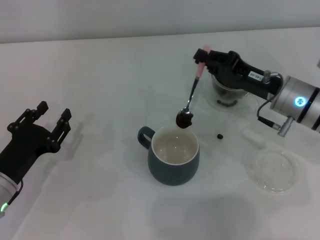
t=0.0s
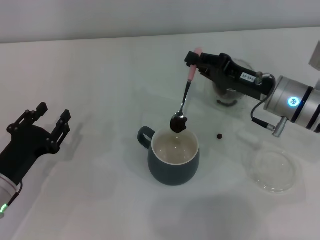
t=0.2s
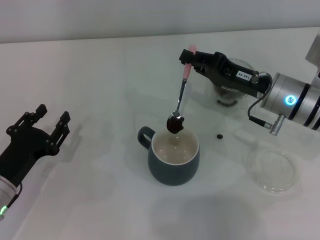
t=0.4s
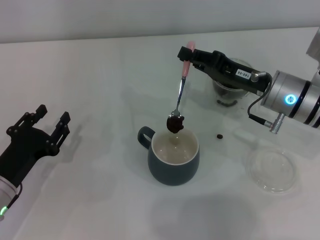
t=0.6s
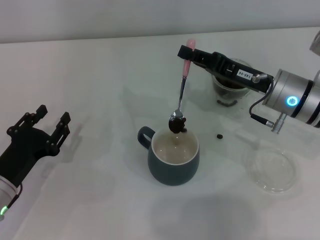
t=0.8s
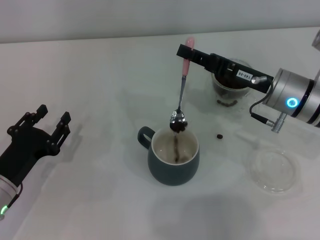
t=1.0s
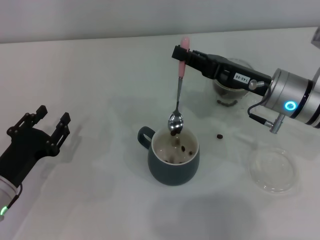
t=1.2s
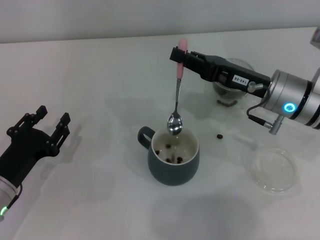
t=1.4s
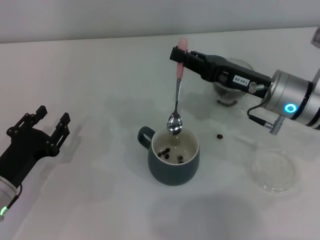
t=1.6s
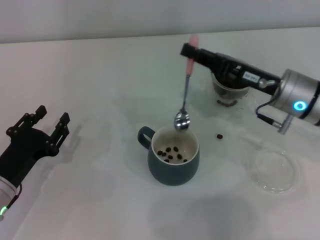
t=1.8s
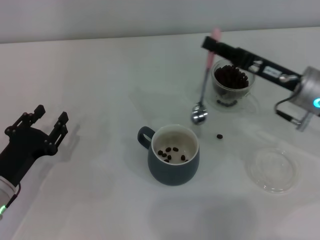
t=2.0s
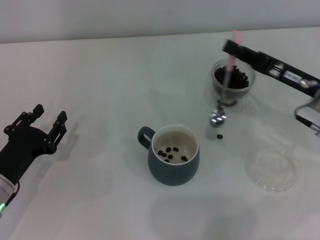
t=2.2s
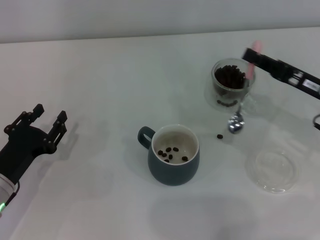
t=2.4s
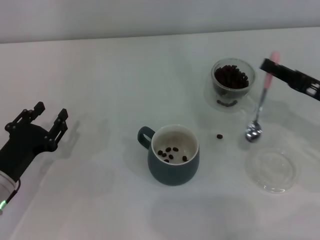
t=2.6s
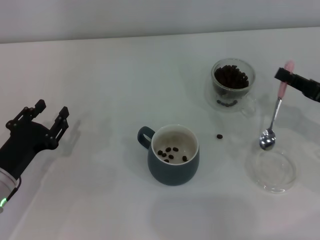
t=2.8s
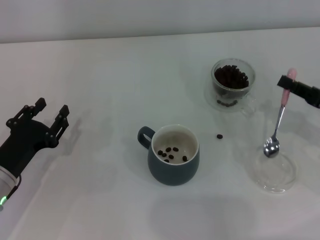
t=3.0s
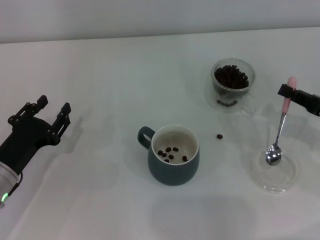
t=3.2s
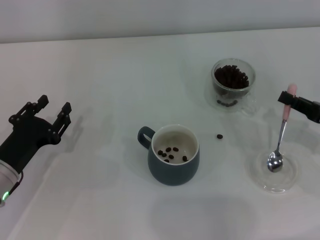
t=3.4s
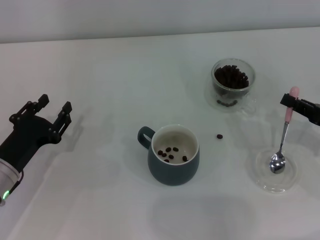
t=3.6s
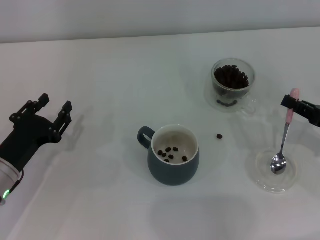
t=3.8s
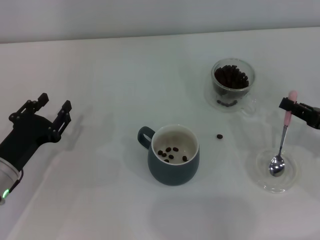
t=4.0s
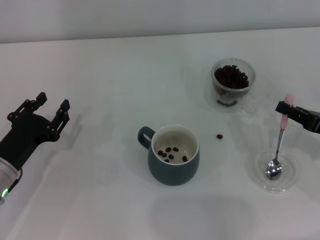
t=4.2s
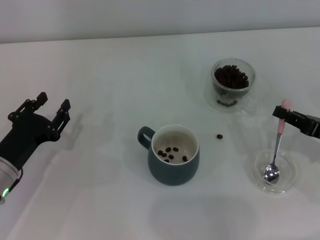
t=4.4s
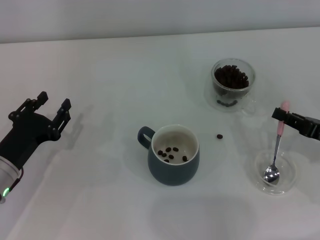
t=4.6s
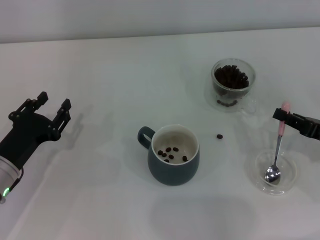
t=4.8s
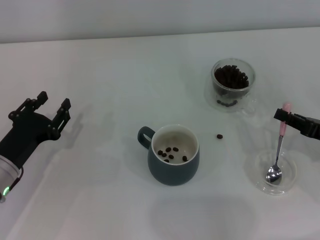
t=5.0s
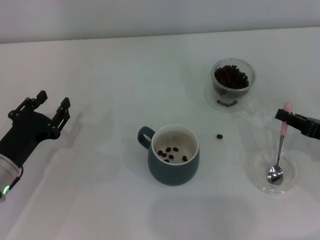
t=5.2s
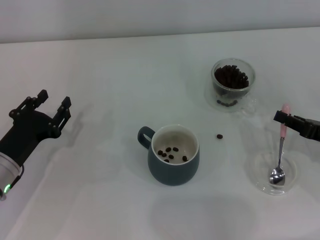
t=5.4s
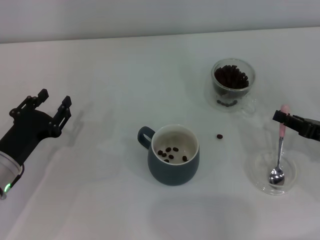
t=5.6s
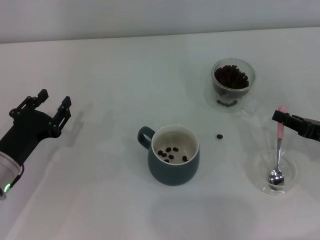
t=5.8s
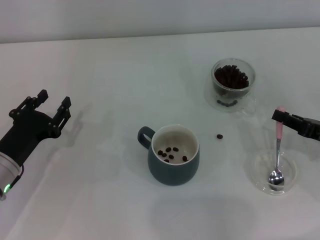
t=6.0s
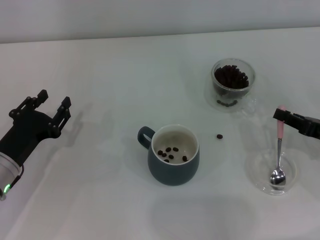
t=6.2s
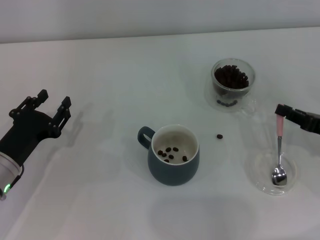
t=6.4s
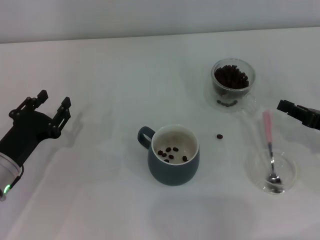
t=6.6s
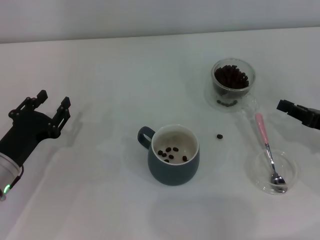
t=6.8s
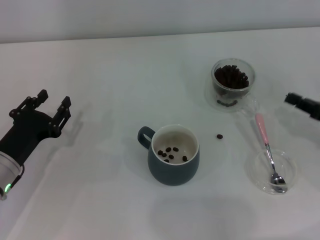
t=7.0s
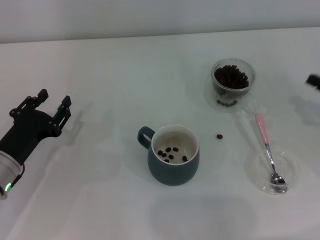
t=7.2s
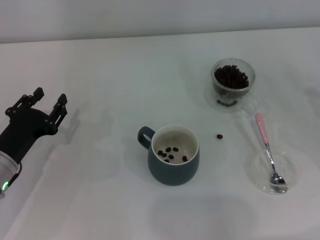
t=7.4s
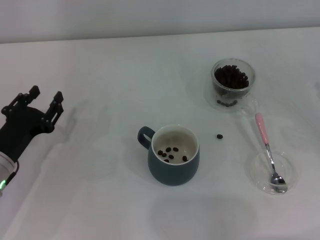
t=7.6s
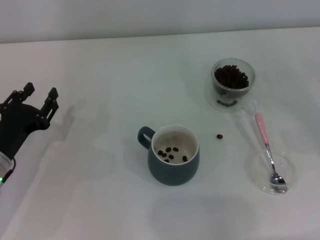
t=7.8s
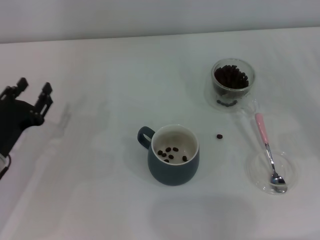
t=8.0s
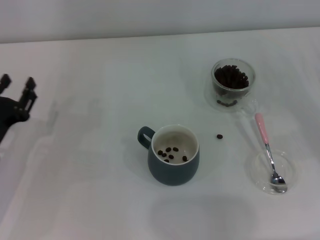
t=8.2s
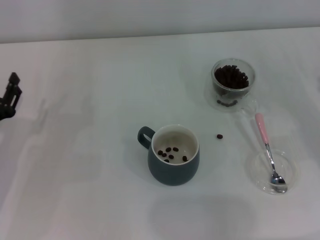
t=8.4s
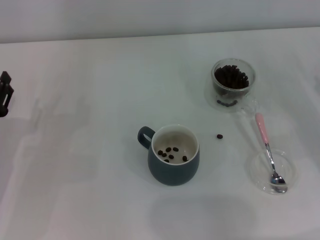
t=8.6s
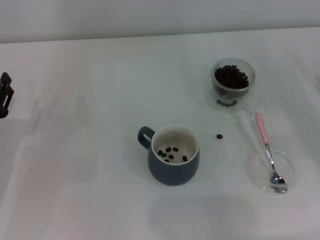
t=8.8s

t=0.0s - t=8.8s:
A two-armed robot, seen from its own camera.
Task of the whole recording: Use a pink spoon to take out the coffee beans from the glass and pour them into the gray cup.
Step, t=2.0s - t=6.4s: Place the spoon back in its original place with the right gripper.
t=1.4s - t=3.0s: The right gripper travels to the right and backward by about 15 cm.
t=3.0s - t=4.4s: There are only small adjustments of the grippers.
t=4.4s - t=5.8s: Both grippers stay put.
t=5.8s - t=7.4s: The right gripper is displaced to the right by about 5 cm.

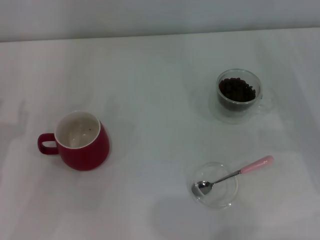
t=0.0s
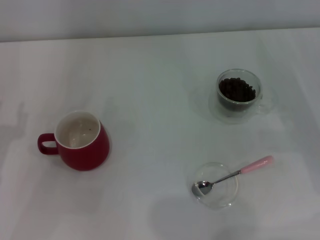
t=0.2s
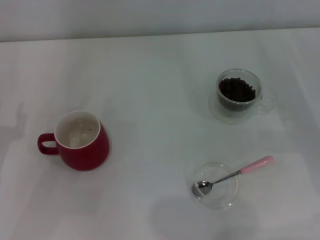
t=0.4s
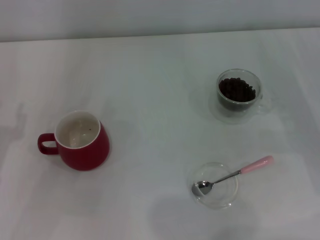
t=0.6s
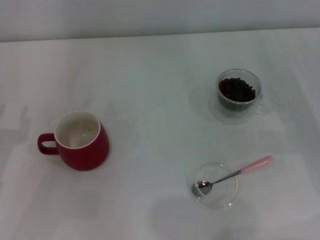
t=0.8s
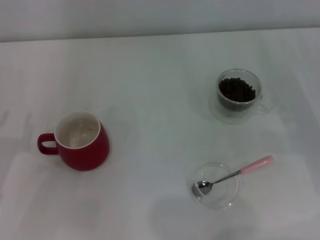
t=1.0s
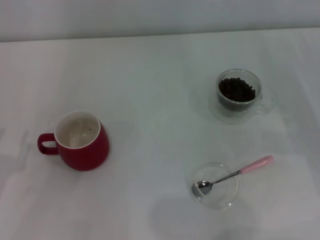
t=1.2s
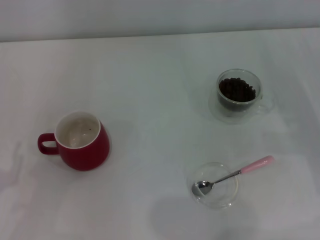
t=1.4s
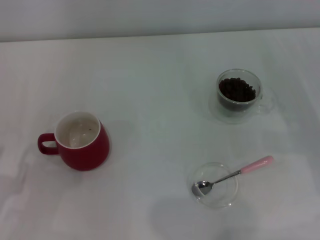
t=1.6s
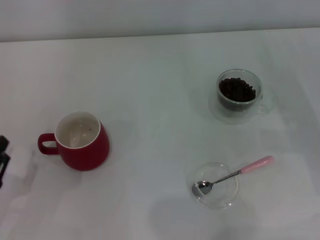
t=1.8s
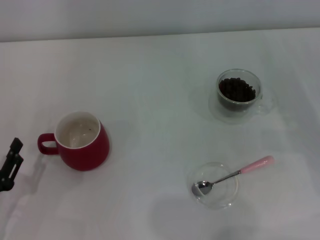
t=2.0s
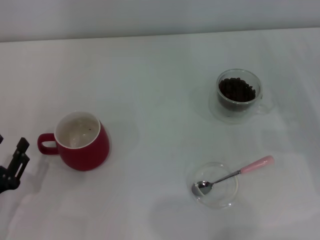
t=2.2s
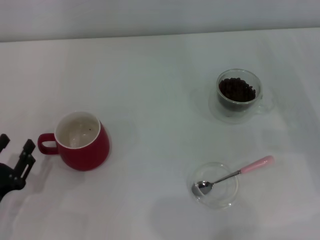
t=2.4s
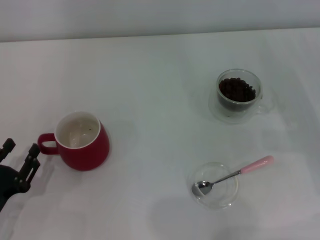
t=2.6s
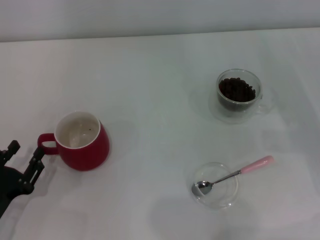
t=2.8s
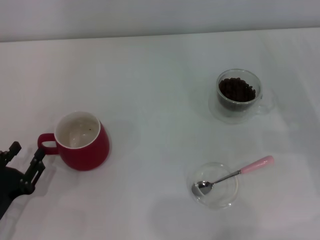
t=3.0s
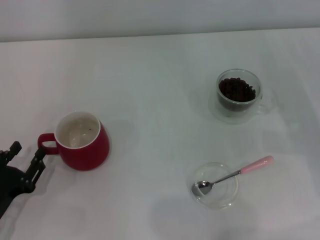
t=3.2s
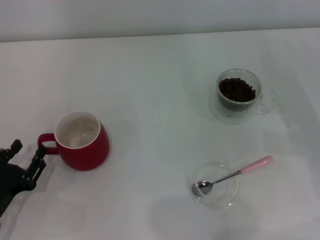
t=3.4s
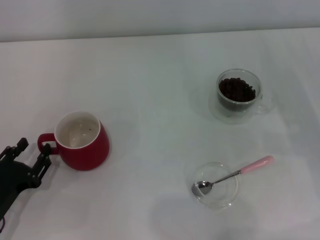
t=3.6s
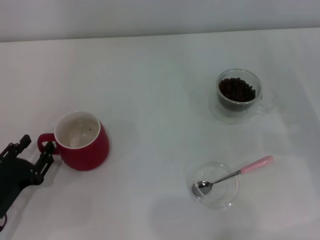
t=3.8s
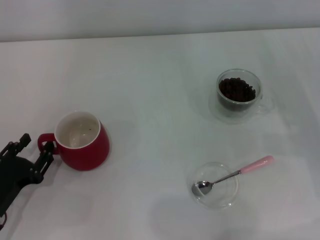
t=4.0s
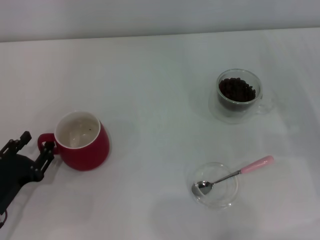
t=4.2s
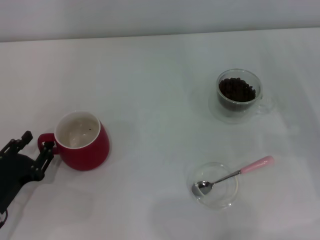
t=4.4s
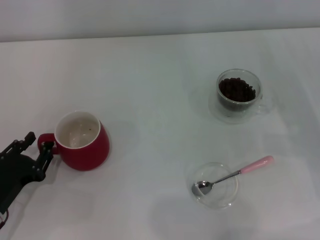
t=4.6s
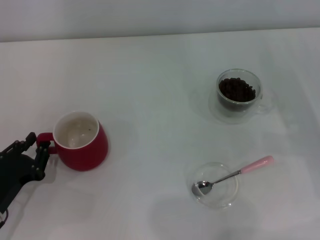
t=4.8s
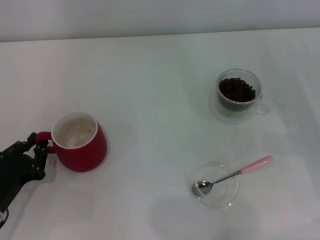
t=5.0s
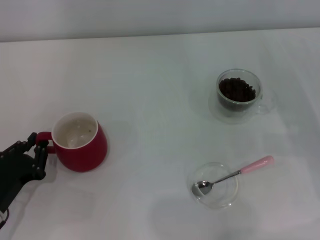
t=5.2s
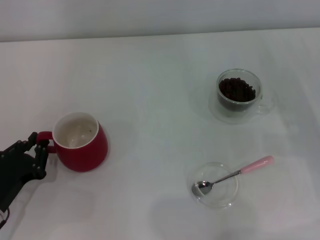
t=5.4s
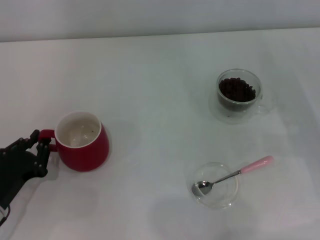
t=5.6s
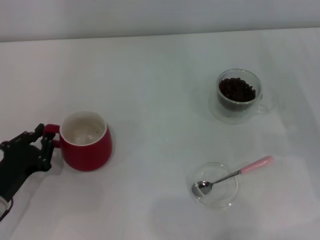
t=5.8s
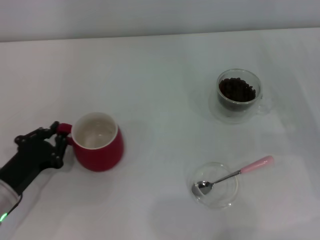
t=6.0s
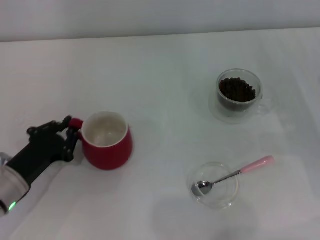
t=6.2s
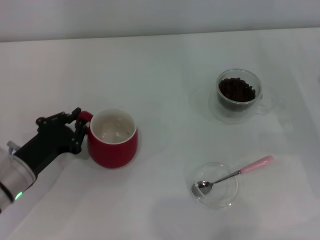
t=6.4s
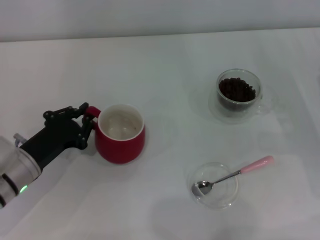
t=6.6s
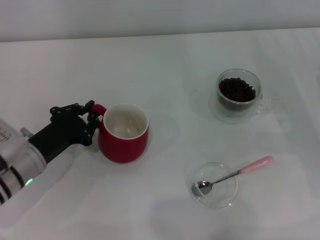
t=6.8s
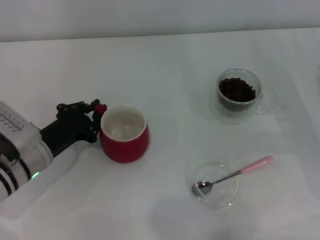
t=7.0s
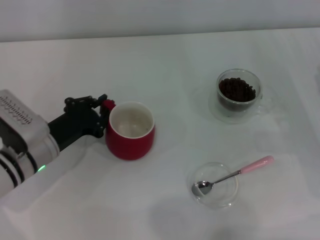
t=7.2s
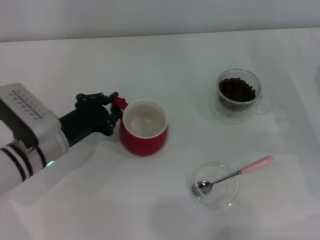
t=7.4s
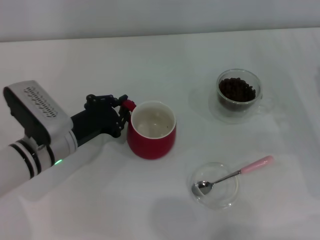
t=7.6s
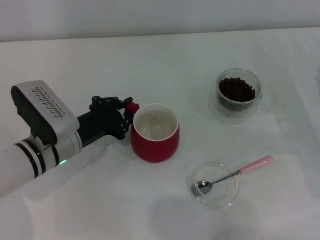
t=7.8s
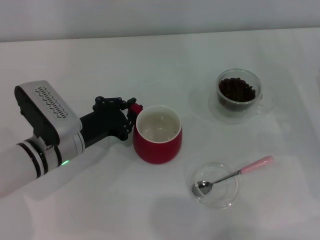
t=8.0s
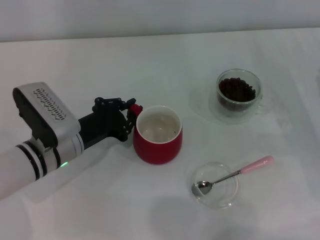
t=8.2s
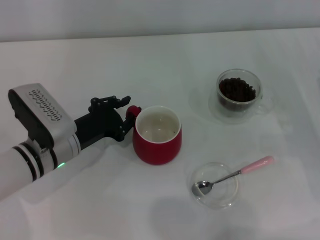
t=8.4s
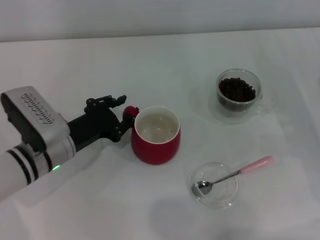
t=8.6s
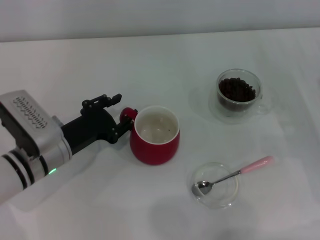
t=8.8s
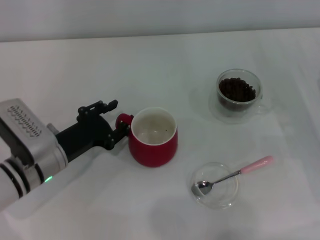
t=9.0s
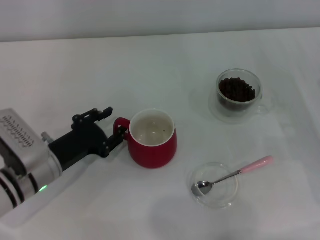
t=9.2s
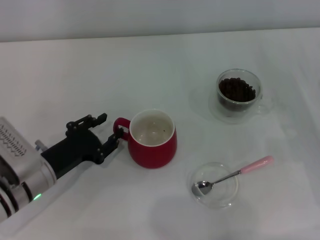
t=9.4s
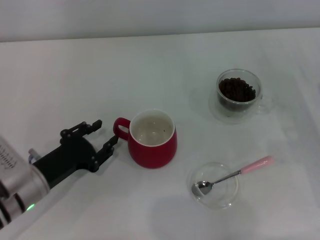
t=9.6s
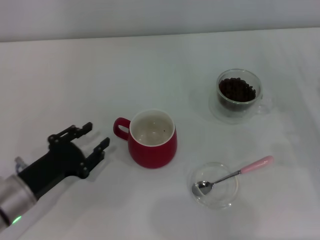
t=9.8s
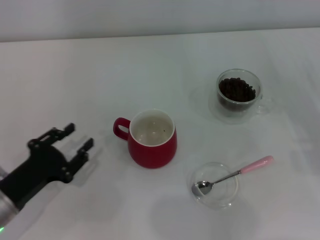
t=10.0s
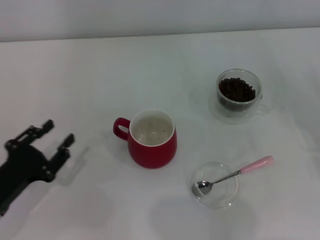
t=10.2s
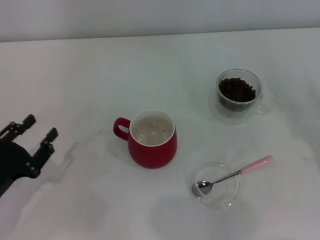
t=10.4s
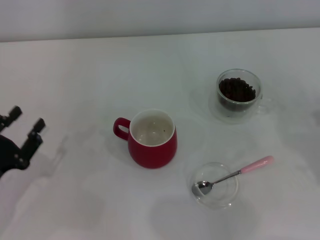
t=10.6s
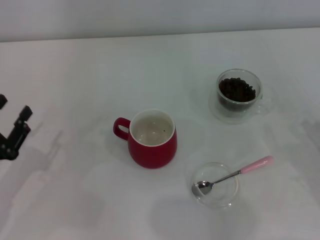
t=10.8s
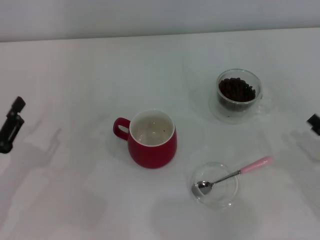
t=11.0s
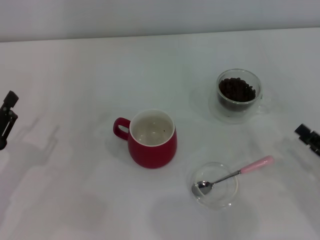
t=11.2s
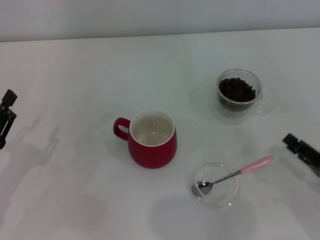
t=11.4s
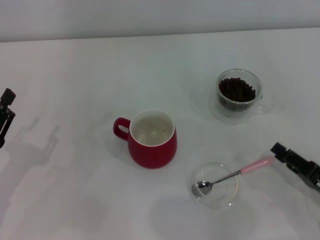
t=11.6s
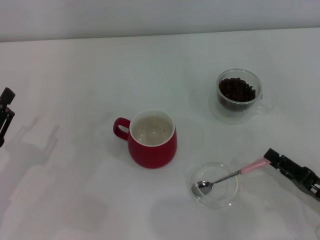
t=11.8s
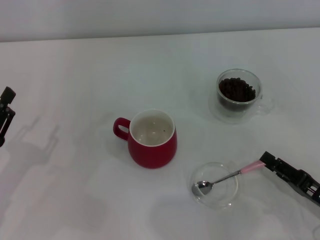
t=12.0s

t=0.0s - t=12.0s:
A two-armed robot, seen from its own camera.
Task of the whole recording: Use a pink spoon to take out the coffee beans from the glass and pour them into the red cup.
Step, t=0.0s - t=9.8s: Move the cup to the center of view with the left gripper.
t=1.6s - t=3.0s: The grippers make only small movements.
t=3.0s - t=4.4s: The grippers move only a little.
t=4.4s - t=6.0s: The left gripper closes up.
t=6.0s - t=7.6s: The left gripper heads to the right and forward, covering roughly 10 cm.
t=7.6s - t=9.0s: The left gripper opens up.
t=9.0s - t=10.4s: The left gripper moves to the left and backward, roughly 15 cm; the right gripper travels backward by about 5 cm.
t=10.4s - t=12.0s: The right gripper travels to the left and backward by roughly 10 cm.

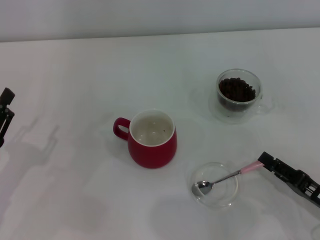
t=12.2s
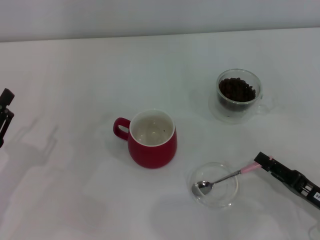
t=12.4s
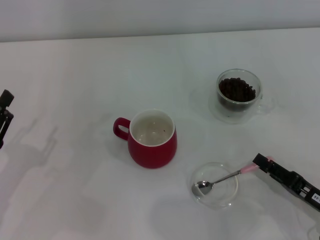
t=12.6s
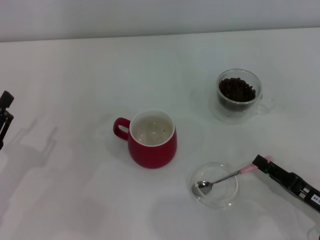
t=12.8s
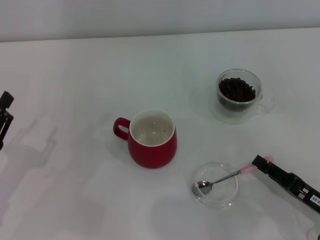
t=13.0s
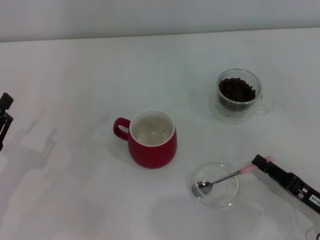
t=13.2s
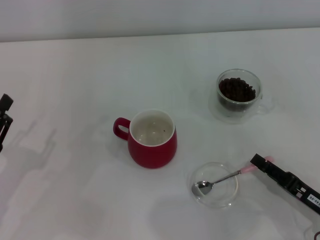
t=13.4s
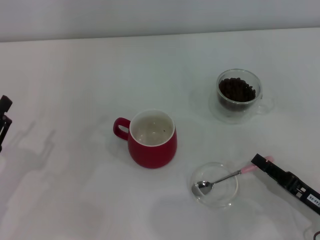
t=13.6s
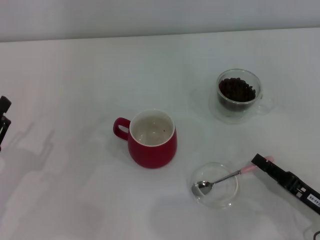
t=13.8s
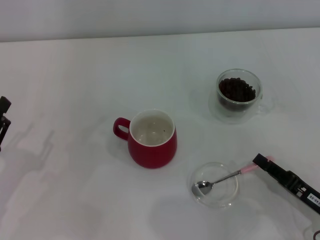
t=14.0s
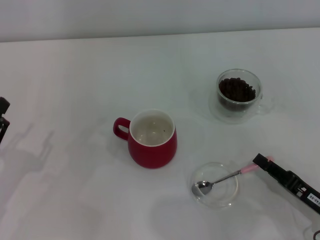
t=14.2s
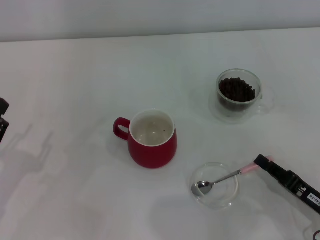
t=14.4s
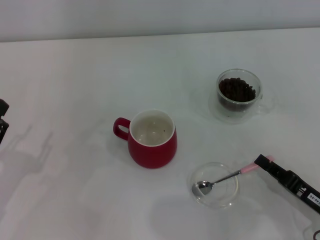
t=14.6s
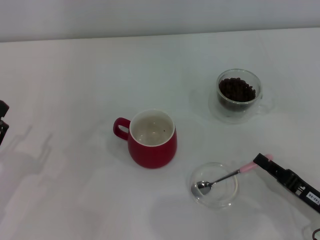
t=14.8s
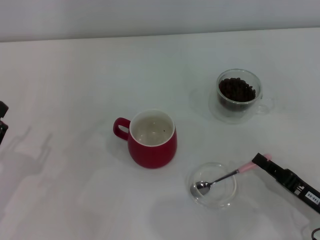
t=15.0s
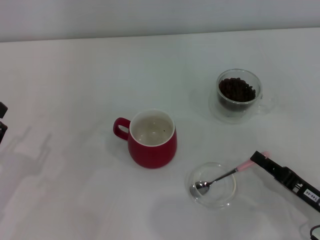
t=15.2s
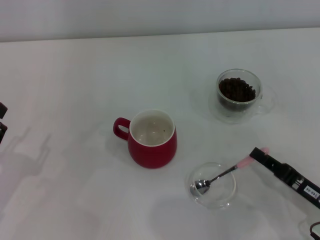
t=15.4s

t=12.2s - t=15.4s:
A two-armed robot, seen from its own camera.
Task of the whole recording: Use a pink spoon to take out the coffee beans from the glass and pour them into the red cup.
t=12.2s - t=13.8s: The grippers move only a little.
t=13.8s - t=15.4s: The right gripper closes its fingers.
